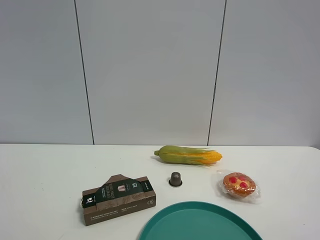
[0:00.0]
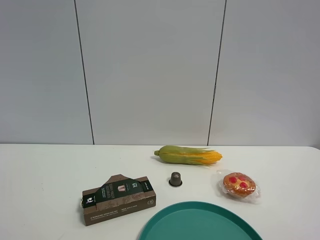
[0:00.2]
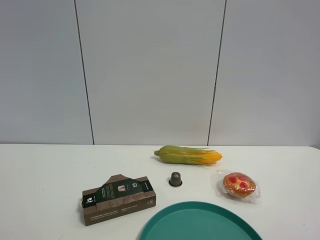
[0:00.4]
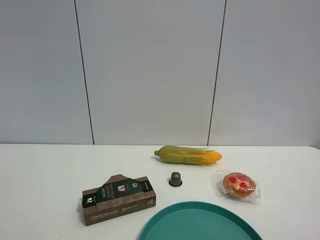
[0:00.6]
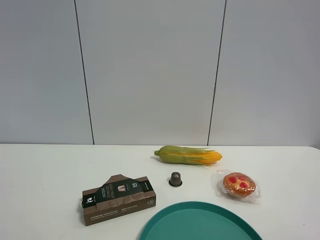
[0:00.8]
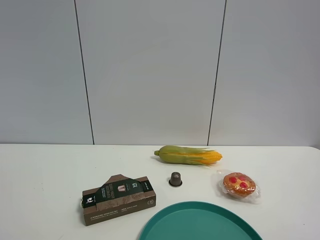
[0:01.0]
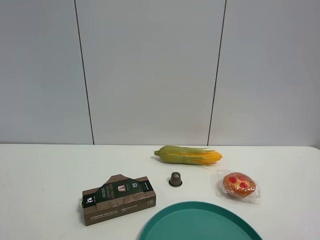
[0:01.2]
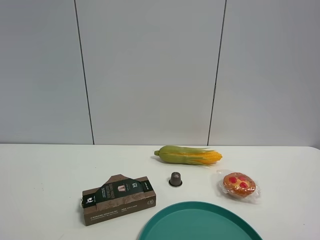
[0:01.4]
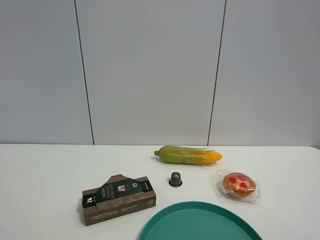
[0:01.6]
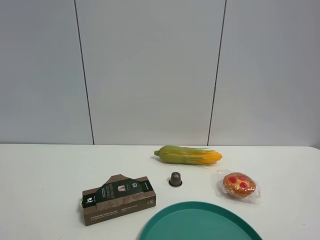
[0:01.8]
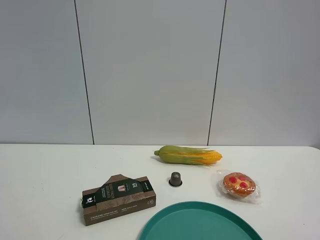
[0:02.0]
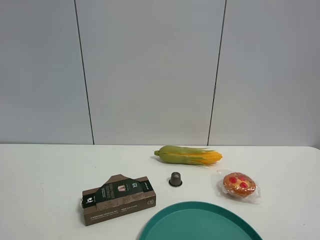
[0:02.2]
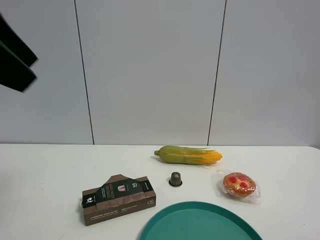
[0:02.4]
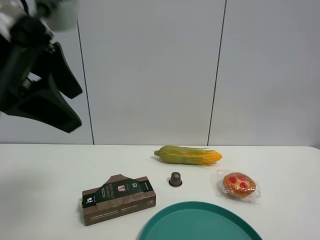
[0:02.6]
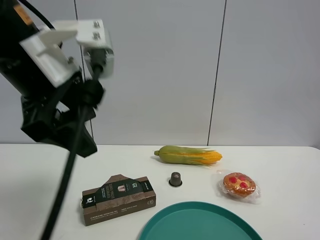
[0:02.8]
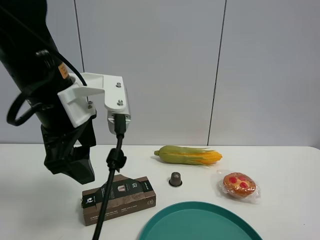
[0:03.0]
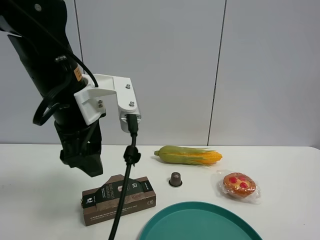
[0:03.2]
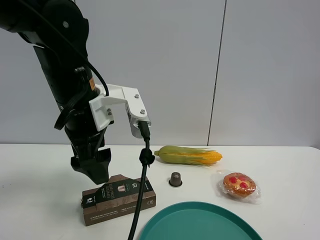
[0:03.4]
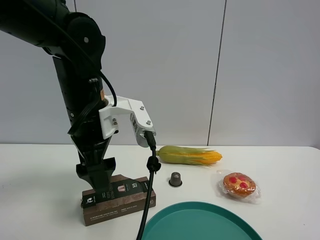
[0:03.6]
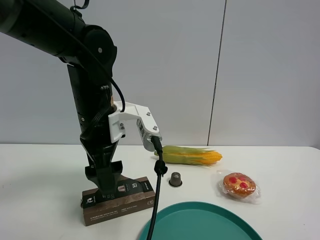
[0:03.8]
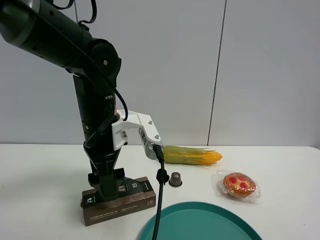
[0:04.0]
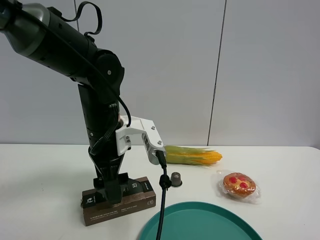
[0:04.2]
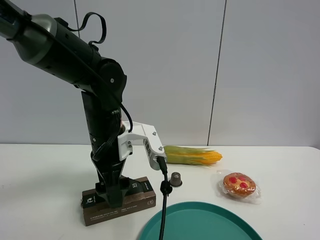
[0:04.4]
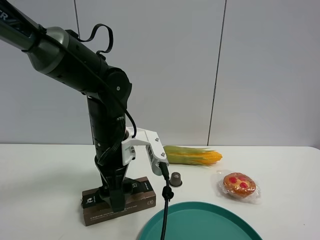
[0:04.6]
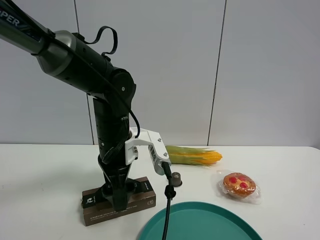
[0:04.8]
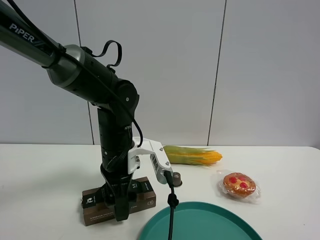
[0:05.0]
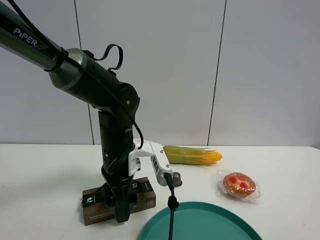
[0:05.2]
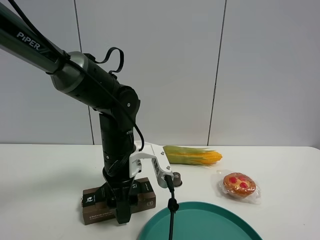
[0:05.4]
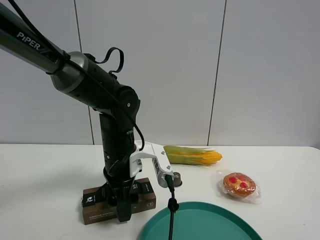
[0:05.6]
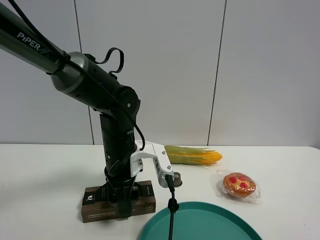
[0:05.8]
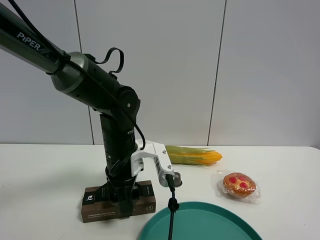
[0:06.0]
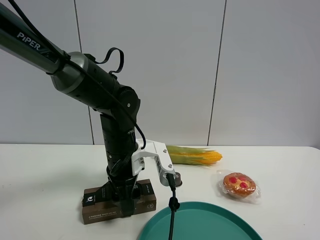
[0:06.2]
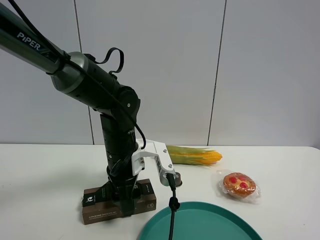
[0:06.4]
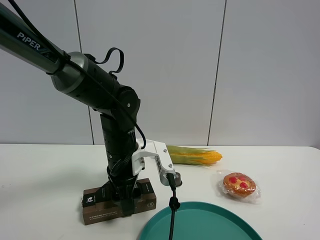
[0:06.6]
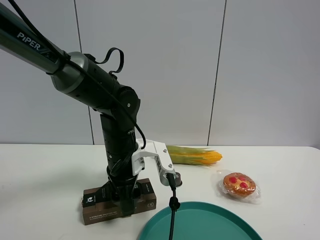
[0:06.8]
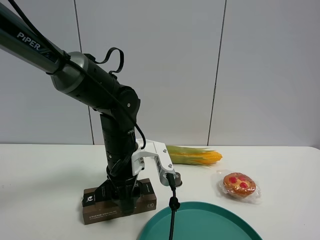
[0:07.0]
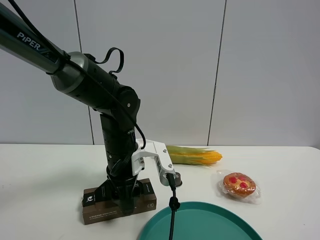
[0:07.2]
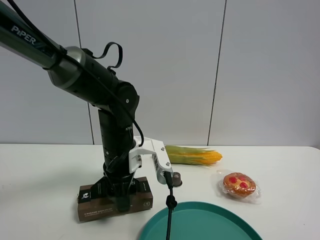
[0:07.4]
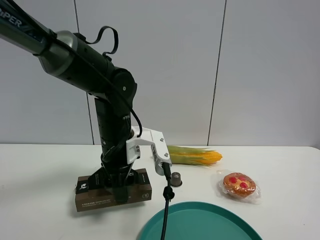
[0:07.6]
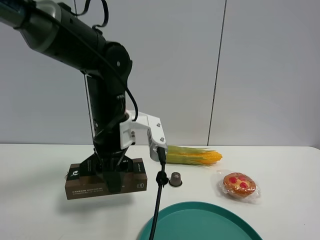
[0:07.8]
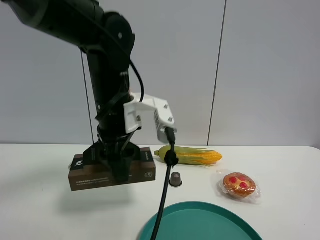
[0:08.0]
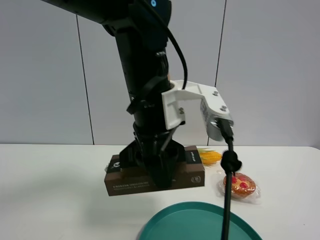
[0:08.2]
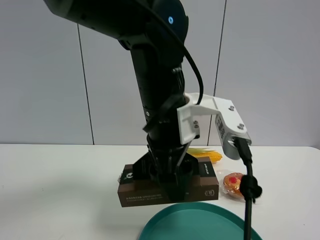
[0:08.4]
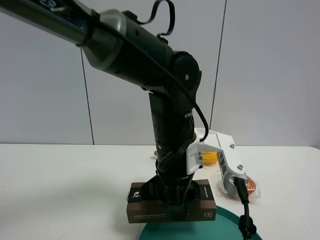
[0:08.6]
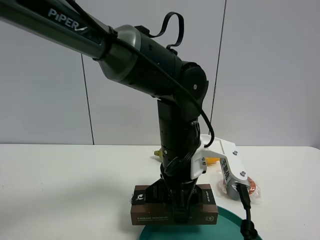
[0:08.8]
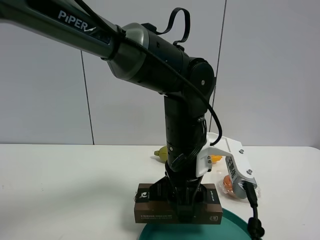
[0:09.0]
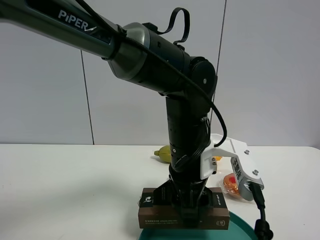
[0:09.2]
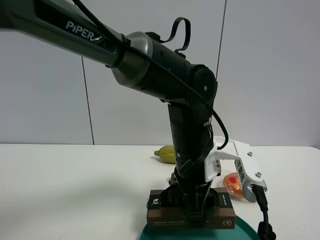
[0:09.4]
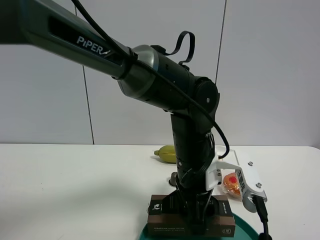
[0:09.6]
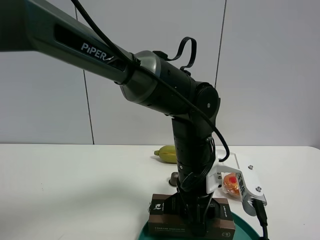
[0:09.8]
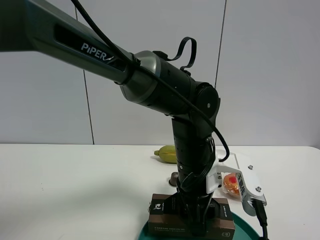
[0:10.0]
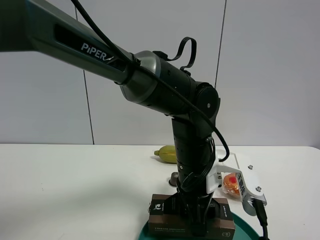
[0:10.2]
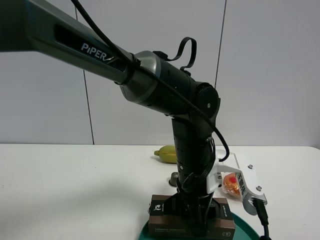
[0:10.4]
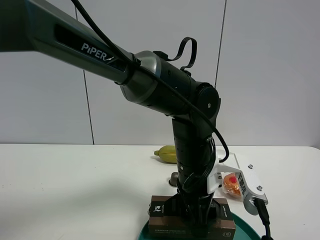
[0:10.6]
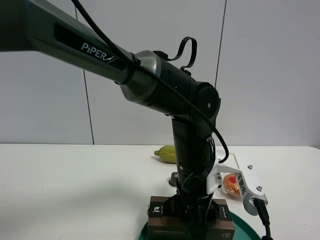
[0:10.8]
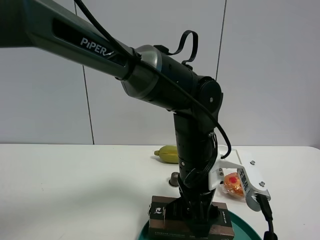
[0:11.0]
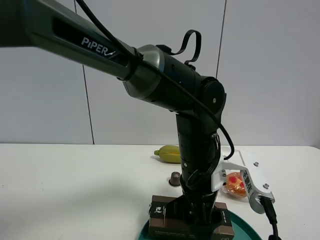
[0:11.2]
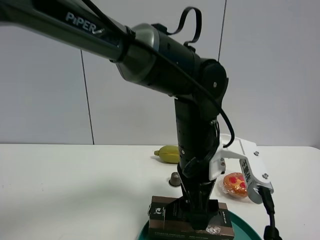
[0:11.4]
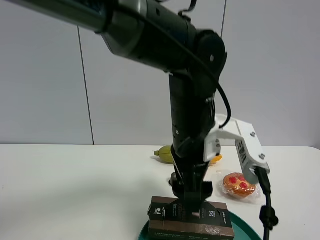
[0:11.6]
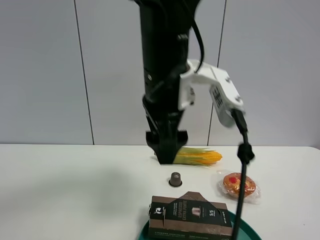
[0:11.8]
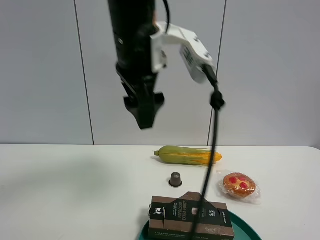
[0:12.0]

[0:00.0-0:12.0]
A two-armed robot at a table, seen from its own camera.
Task of the whole recording: the gripper move the object.
Step, 0:00.0 to 0:05.8: Grasp the brown box with the left gripper.
Step, 0:06.0 to 0:11.2: Place the brown box into the green plate with the left gripper.
0:01.6 to 0:03.0: The left gripper heads forward, to the right and downward, covering roughly 35 cm.
0:03.0 to 0:04.4: The left gripper goes about 10 cm downward and forward, and opens up.
0:04.4 to 0:06.0: The left gripper closes its fingers.
0:06.0 to 0:07.6: The grippers make only small movements.
0:07.6 to 0:09.0: The left gripper is displaced to the right and backward by some 15 cm.
0:10.4 to 0:12.0: The left gripper is displaced upward and to the left by roughly 25 cm, and opens its fingers.

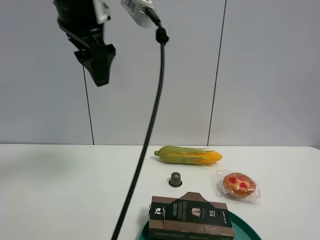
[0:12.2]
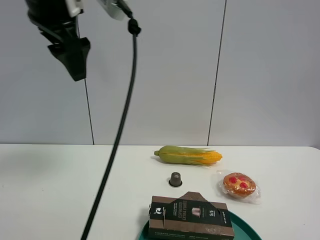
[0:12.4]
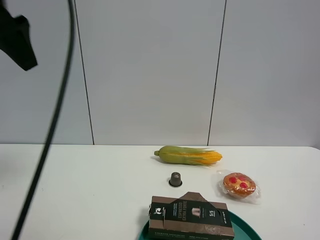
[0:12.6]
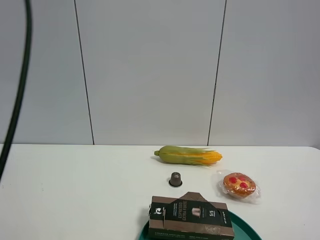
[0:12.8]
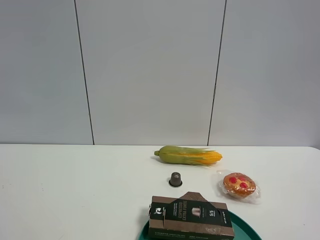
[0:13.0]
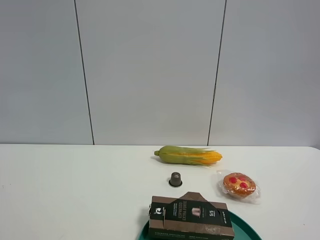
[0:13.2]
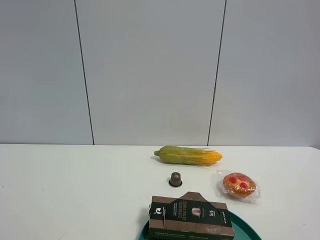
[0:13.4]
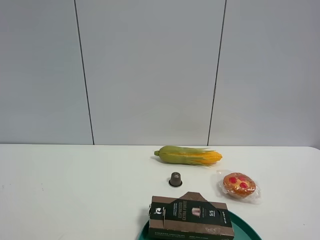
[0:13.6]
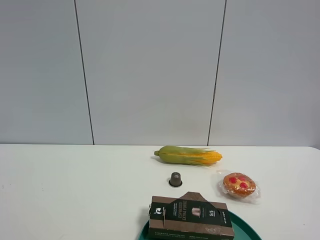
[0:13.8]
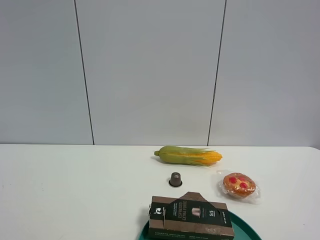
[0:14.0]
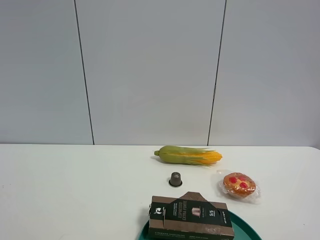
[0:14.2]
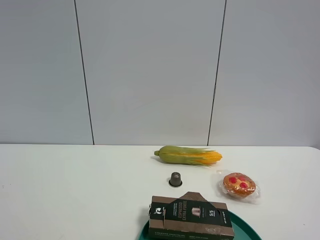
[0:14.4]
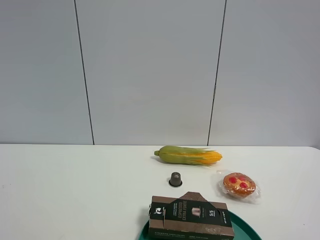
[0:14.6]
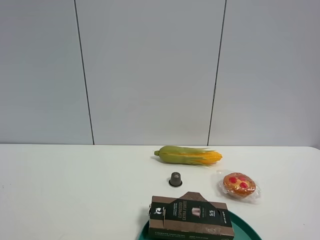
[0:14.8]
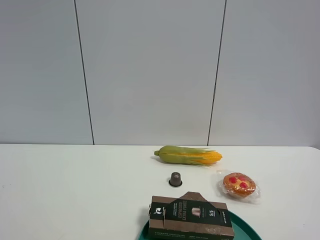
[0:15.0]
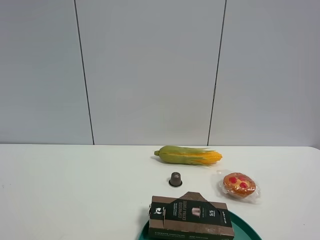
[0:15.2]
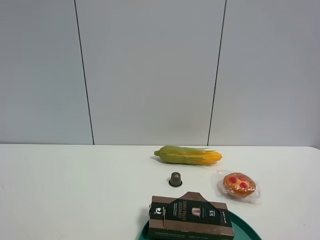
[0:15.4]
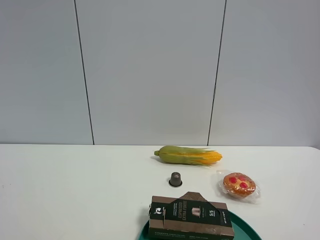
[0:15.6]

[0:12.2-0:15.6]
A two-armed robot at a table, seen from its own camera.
Task of the whole recording: the gripper move the object.
0:12.2 to 0:13.8: The left gripper heads backward and to the left, covering some 40 cm.

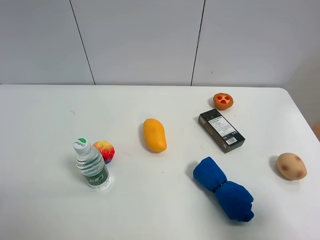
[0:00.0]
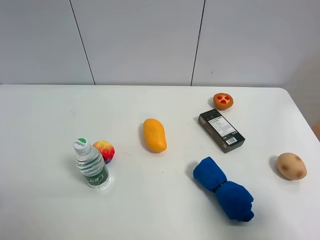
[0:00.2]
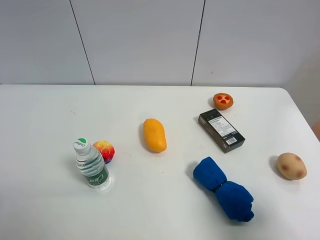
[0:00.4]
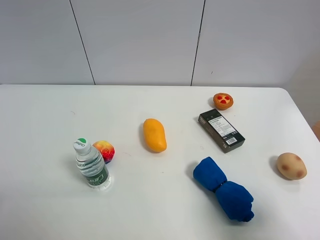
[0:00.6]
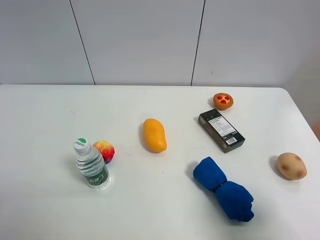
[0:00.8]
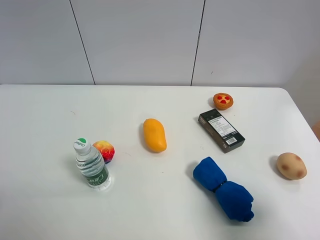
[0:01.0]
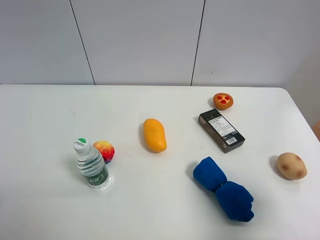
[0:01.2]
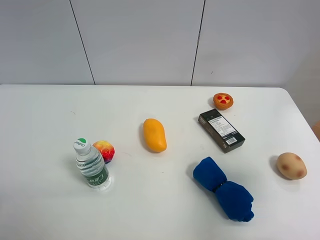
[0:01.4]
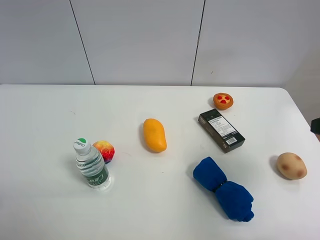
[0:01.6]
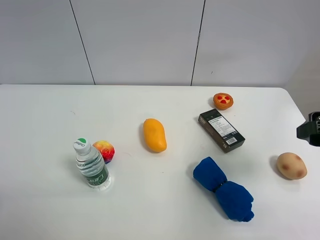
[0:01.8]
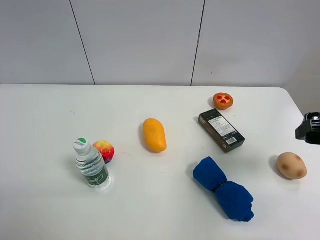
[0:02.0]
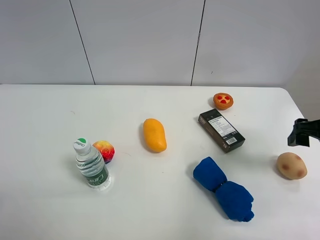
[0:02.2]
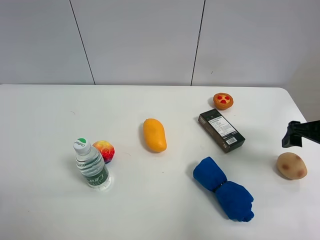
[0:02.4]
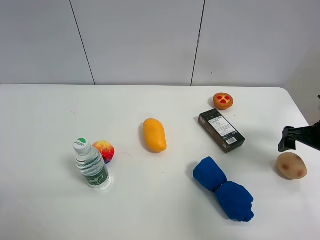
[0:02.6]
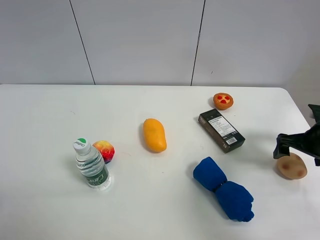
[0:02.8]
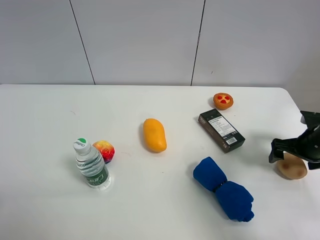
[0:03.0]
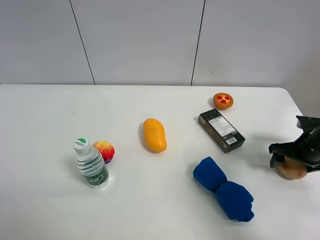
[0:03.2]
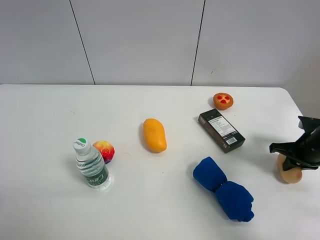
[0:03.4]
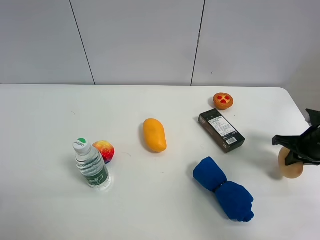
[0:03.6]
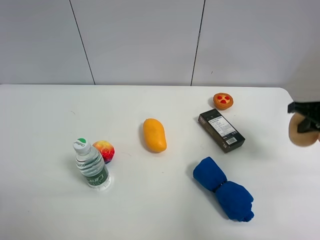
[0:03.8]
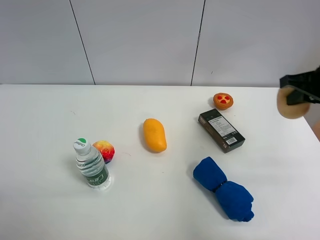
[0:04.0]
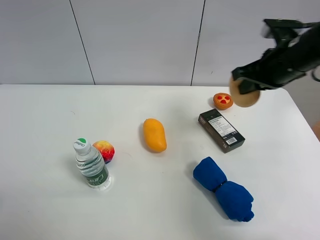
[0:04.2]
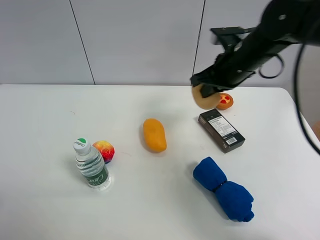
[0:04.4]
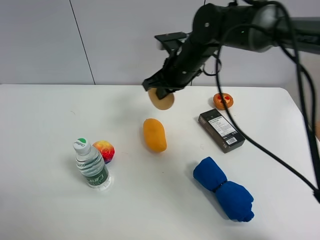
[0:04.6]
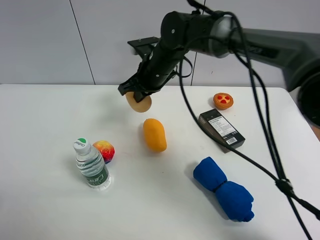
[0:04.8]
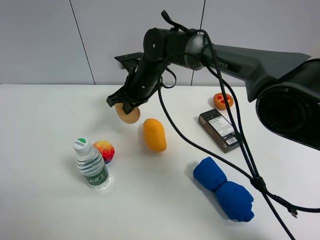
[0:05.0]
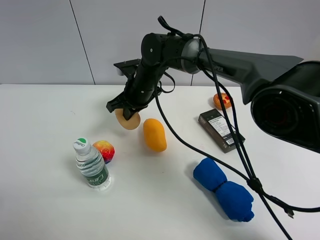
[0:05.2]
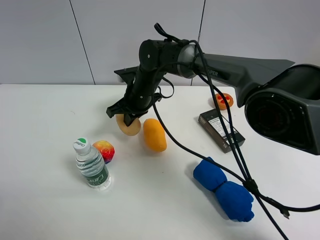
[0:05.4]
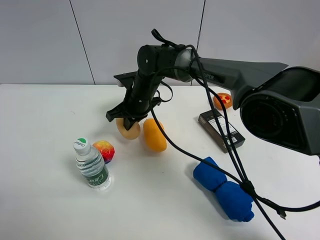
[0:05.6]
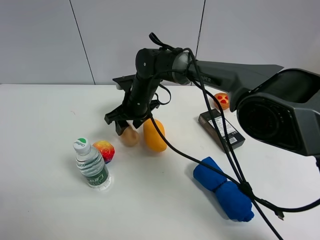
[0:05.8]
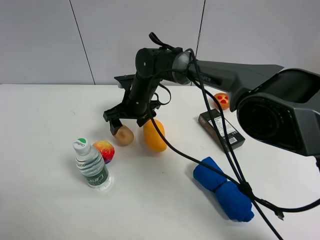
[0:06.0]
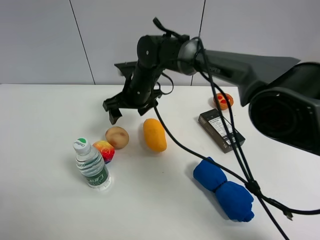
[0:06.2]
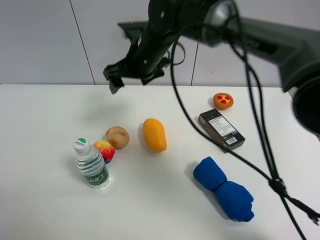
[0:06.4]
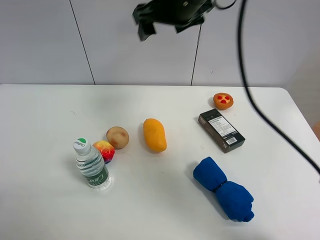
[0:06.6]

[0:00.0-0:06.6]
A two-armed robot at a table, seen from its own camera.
Task of the whole recording: the gripper move the object.
Step, 0:00.0 to 0:03.2: Grasp the egg yolk pastry with the right gripper.
Step, 0:03.4 to 0:06.0: Place the egg yolk pastry on the table with the right gripper.
0:00.0 to 0:01.6: The right gripper is displaced forward by some 15 cm.
0:01.6 to 0:03.2: The right gripper travels downward and forward by about 25 cm, and closes its fingers.
0:03.2 to 0:05.0: The right gripper travels to the left by about 40 cm, and closes up.
0:05.0 to 0:06.6: The right gripper heads upward and to the right, covering about 25 cm, and opens its fingers.
